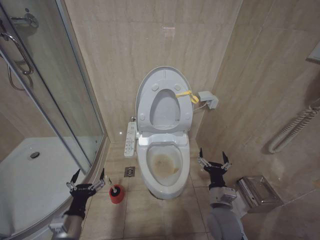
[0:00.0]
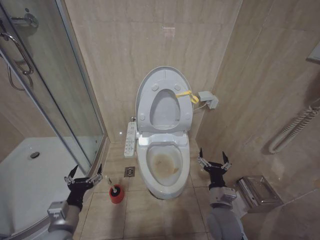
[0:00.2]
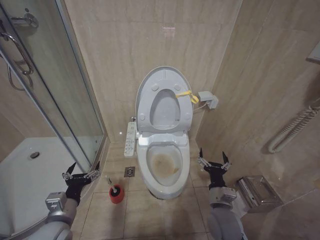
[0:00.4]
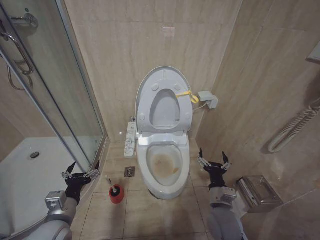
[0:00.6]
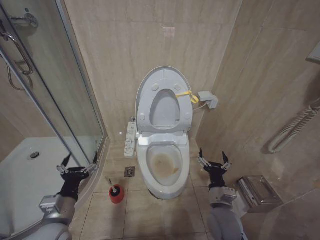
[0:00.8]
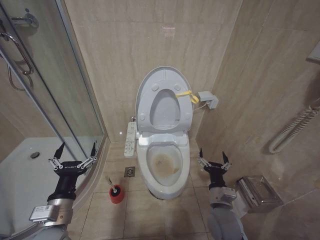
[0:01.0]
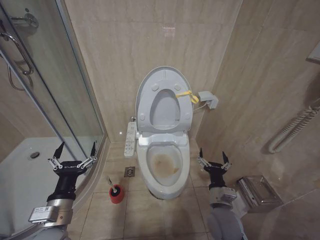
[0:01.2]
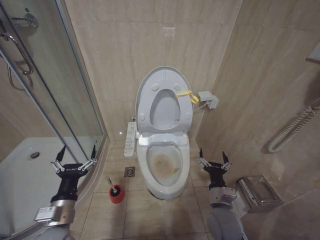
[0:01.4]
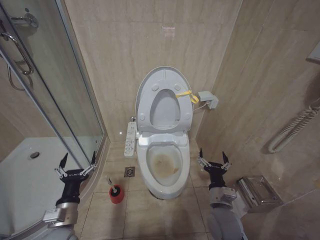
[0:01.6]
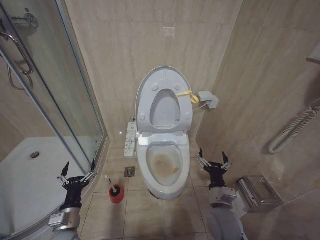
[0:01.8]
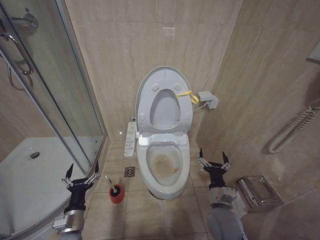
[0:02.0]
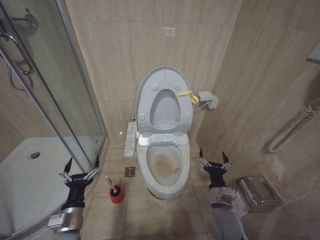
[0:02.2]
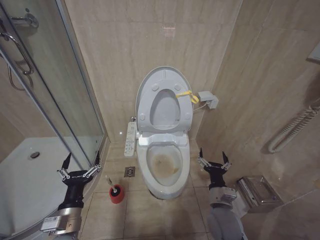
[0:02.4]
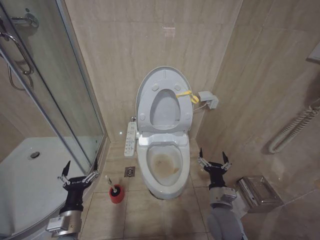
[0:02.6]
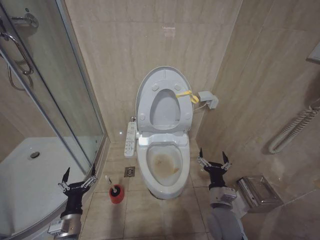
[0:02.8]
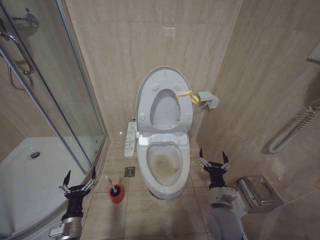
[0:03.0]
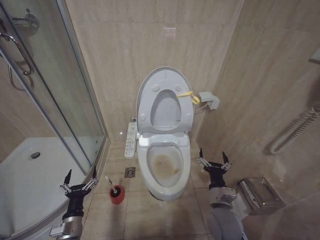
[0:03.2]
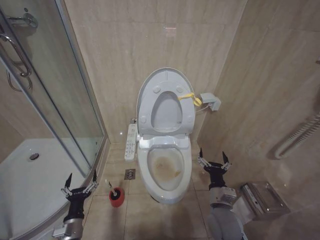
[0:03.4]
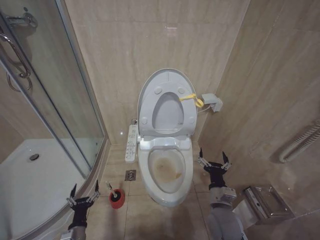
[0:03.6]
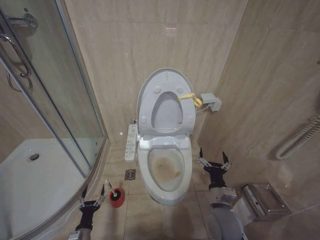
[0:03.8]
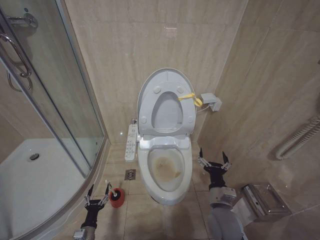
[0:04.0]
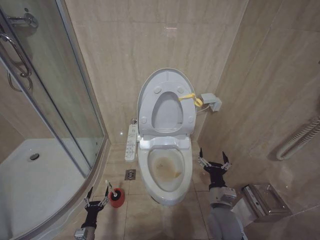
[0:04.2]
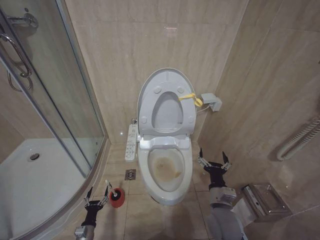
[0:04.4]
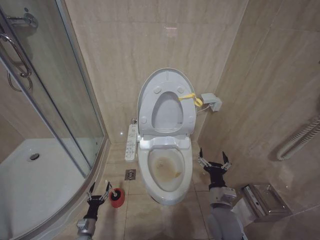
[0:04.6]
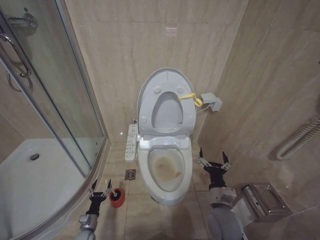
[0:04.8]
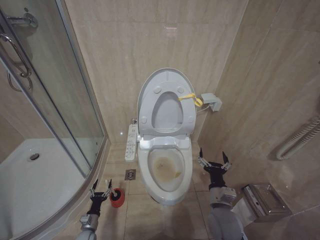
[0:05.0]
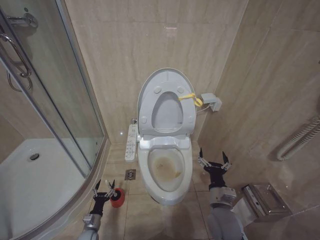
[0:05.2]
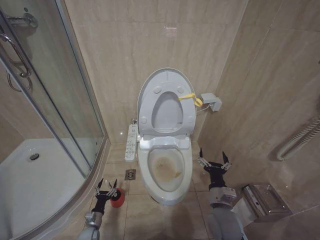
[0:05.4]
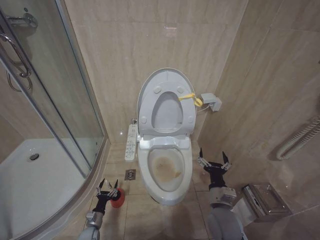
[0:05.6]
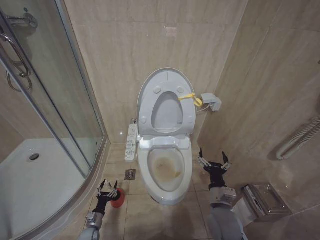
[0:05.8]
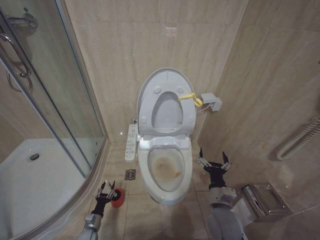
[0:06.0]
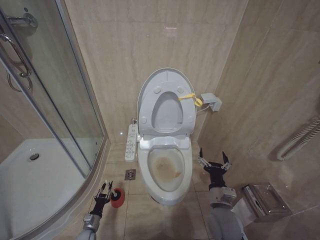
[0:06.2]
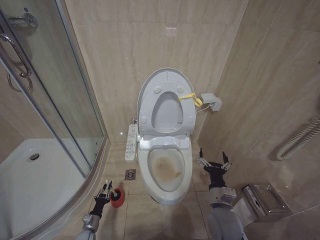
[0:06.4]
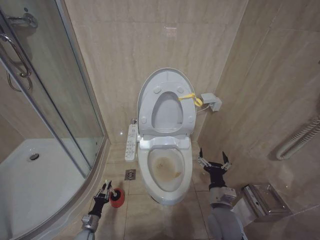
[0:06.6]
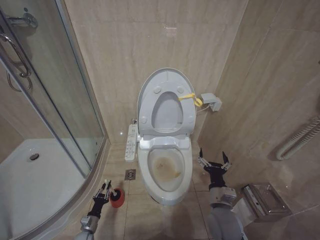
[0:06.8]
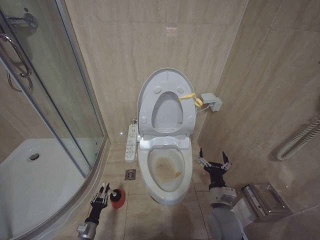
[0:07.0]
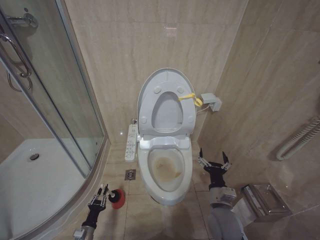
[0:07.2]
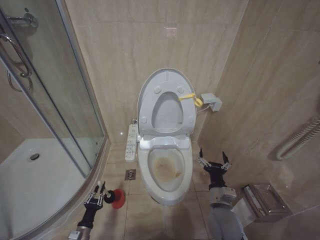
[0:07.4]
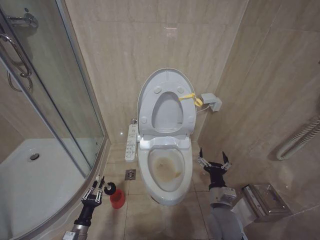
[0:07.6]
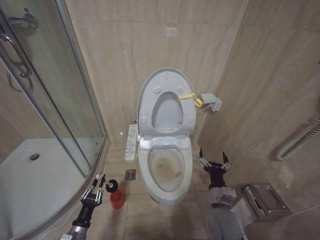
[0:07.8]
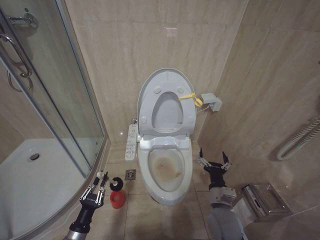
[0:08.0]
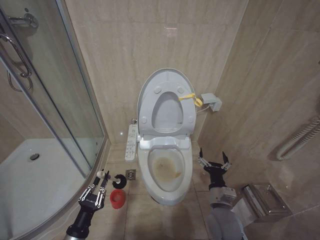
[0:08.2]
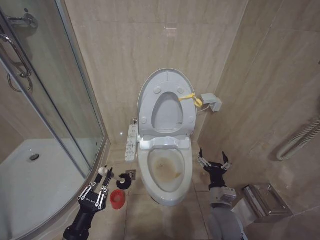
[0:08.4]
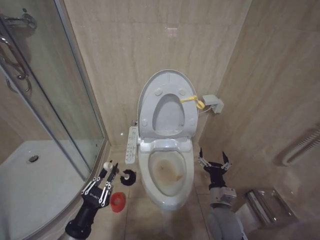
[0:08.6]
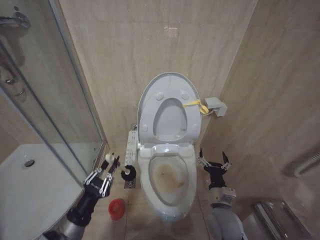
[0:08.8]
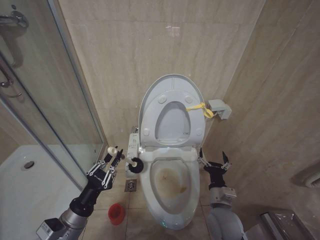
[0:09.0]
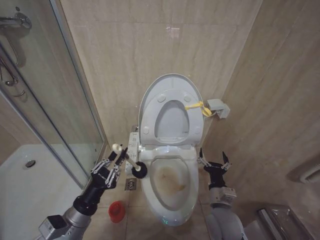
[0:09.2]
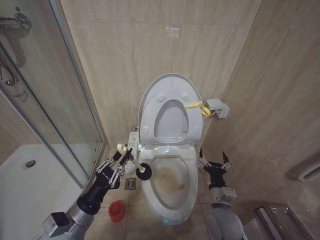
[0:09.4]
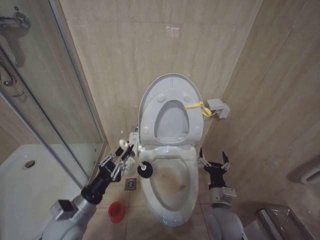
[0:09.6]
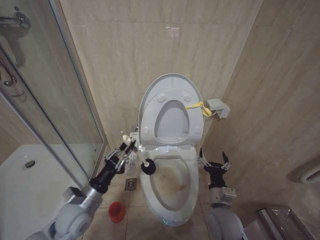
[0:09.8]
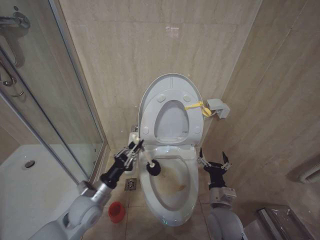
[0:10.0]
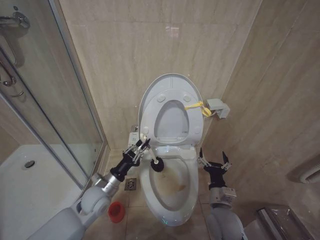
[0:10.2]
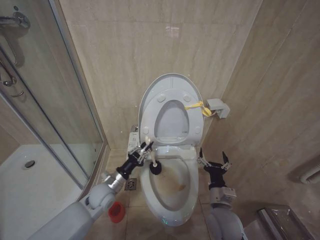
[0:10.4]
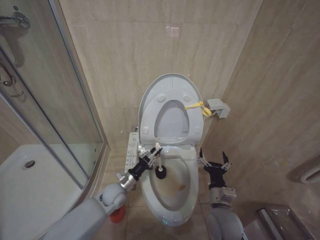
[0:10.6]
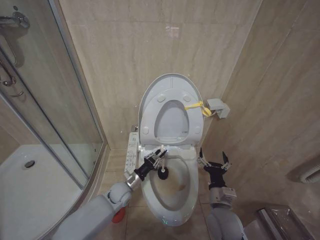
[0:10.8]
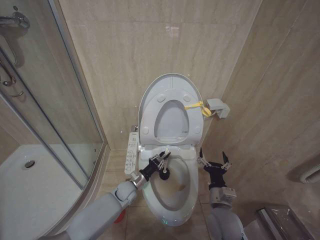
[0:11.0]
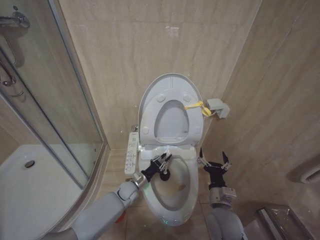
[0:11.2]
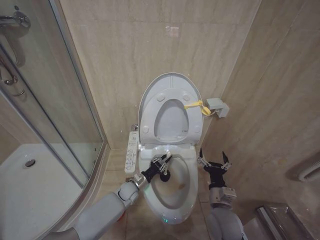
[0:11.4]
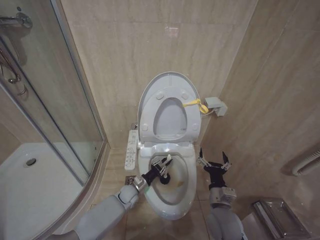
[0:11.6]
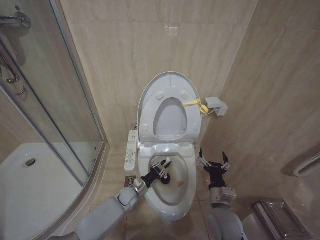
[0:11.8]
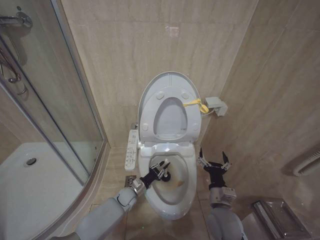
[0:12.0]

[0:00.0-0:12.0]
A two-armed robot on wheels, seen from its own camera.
Task of the whole recording: Open the toilet lid, clean the toilet bowl with a toilet brush, close the toilet lid, and flush.
0:00.0 to 0:01.6: The left gripper moves about 10 cm upward and comes back.
0:01.6 to 0:03.0: The left gripper goes up and down, about 10 cm each way, reversing 2 times.
0:03.0 to 0:04.4: The left gripper heads downward, covering approximately 20 cm.
0:04.4 to 0:06.0: The left gripper goes about 5 cm forward.
0:06.0 to 0:07.6: The left gripper heads upward and backward, covering some 15 cm, and closes its fingers.
0:07.6 to 0:09.0: The left gripper shifts roughly 25 cm upward.
0:09.0 to 0:10.4: The left gripper moves forward and to the right, some 15 cm.
0:10.4 to 0:12.0: The left gripper travels downward and to the right by some 15 cm.

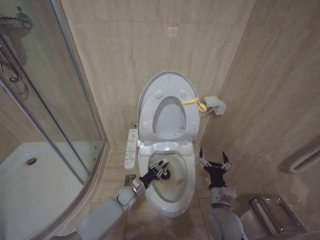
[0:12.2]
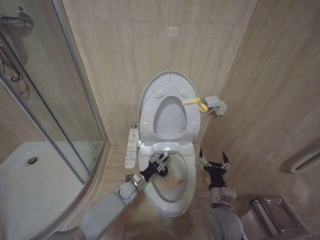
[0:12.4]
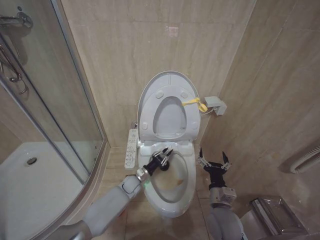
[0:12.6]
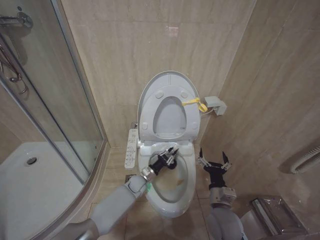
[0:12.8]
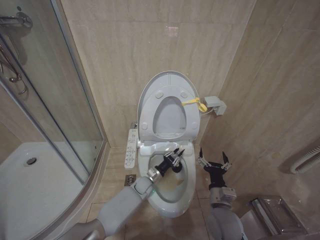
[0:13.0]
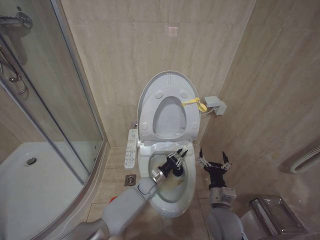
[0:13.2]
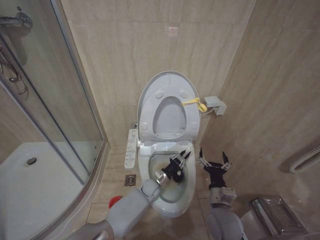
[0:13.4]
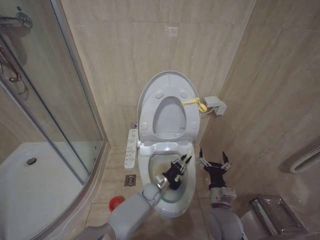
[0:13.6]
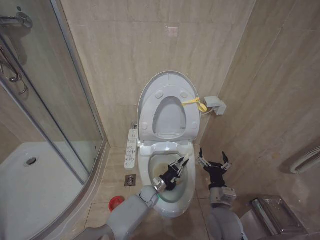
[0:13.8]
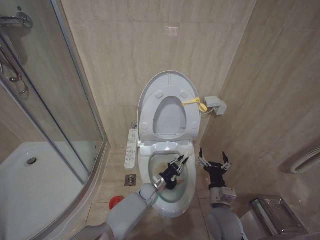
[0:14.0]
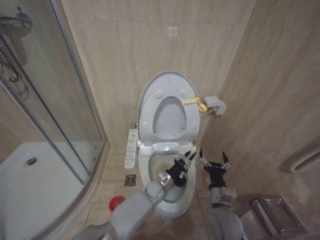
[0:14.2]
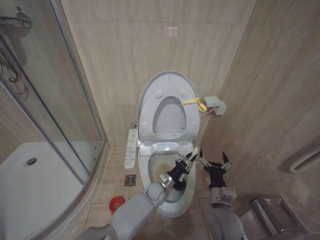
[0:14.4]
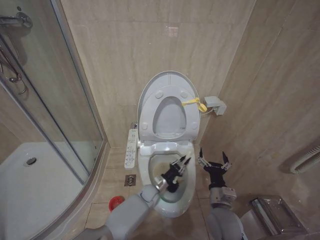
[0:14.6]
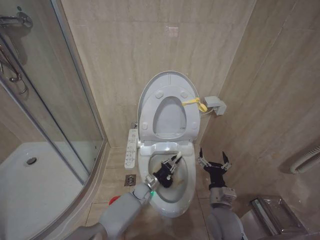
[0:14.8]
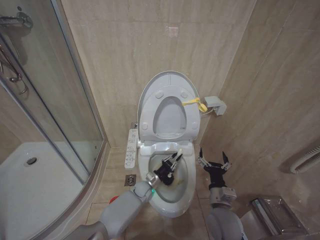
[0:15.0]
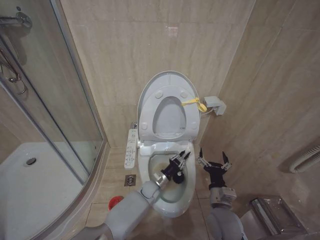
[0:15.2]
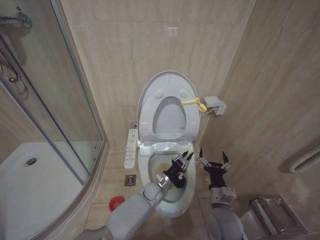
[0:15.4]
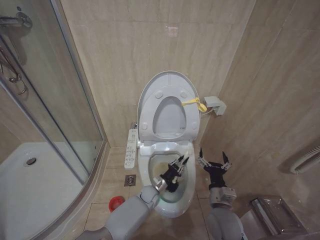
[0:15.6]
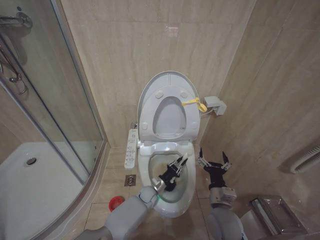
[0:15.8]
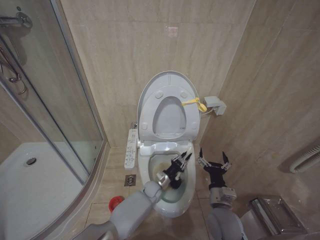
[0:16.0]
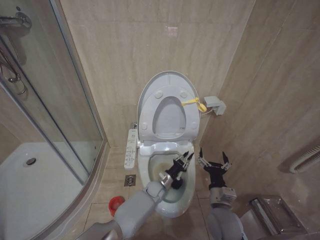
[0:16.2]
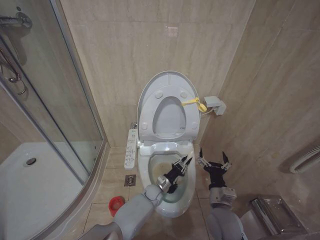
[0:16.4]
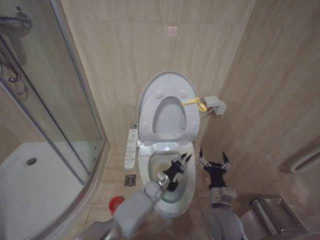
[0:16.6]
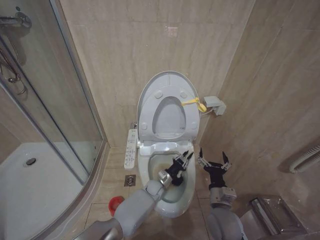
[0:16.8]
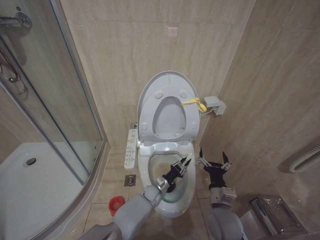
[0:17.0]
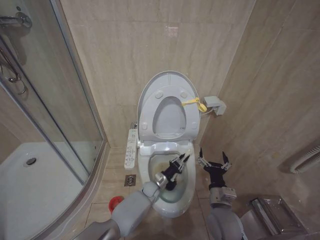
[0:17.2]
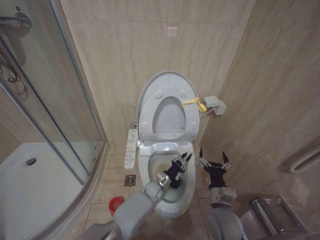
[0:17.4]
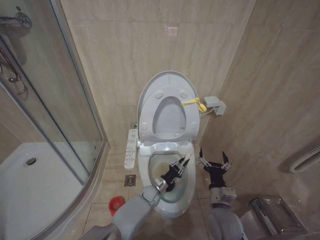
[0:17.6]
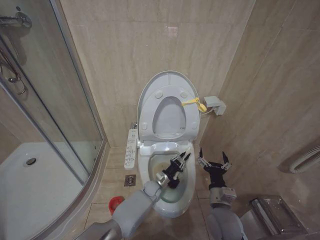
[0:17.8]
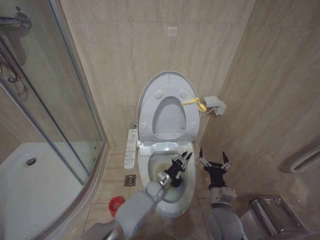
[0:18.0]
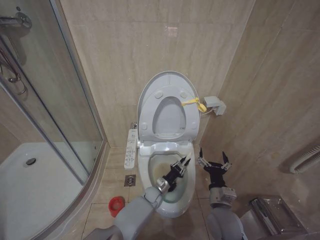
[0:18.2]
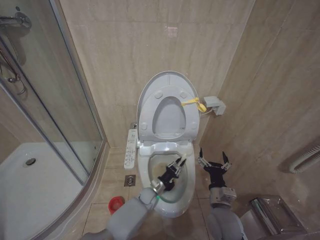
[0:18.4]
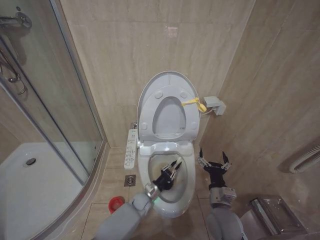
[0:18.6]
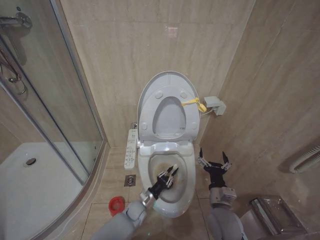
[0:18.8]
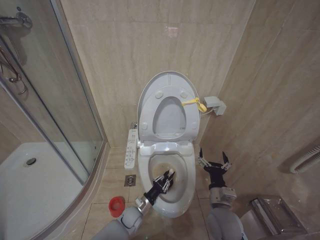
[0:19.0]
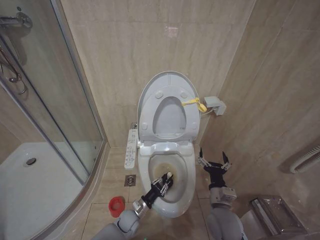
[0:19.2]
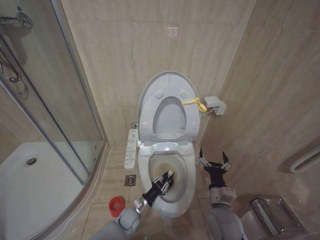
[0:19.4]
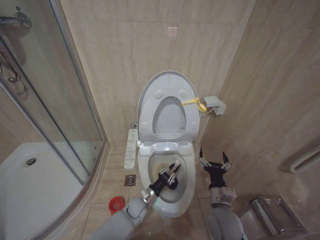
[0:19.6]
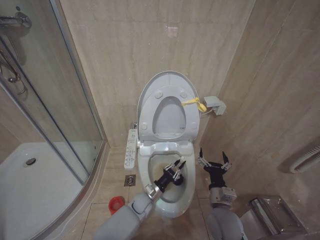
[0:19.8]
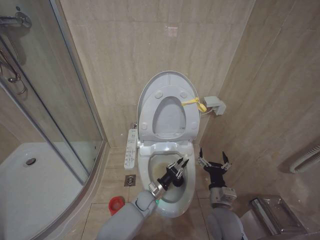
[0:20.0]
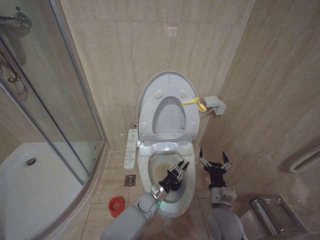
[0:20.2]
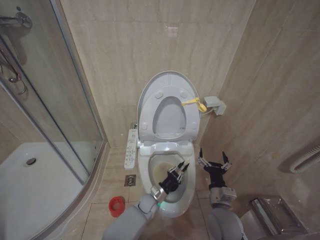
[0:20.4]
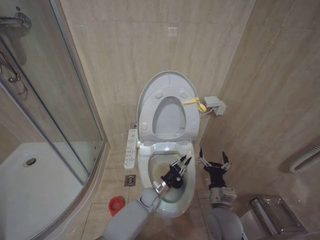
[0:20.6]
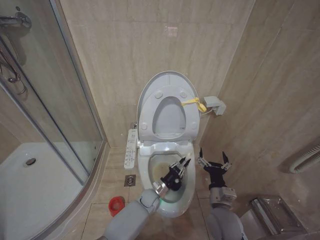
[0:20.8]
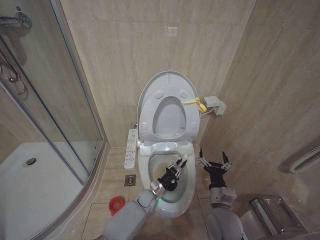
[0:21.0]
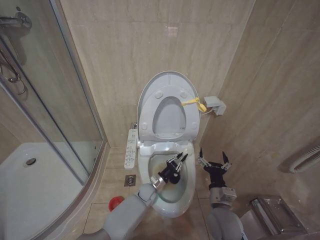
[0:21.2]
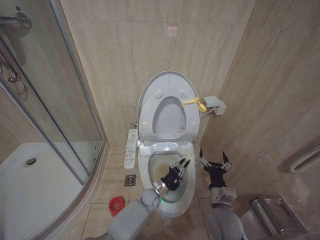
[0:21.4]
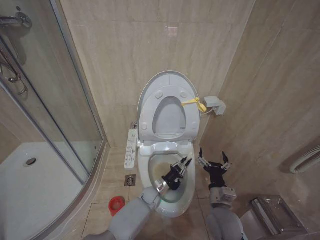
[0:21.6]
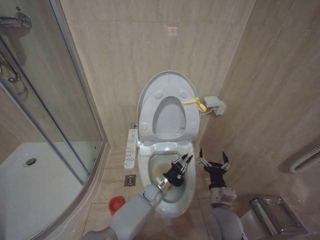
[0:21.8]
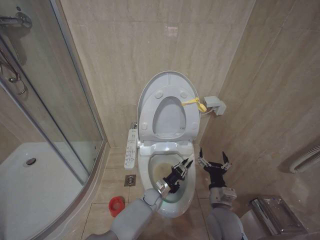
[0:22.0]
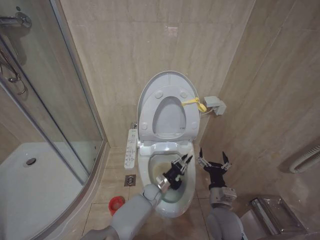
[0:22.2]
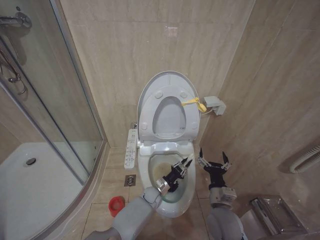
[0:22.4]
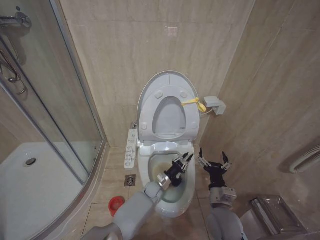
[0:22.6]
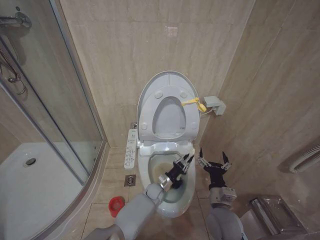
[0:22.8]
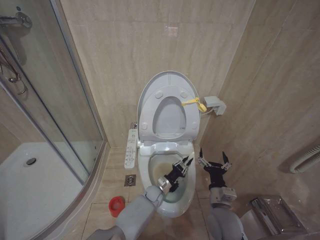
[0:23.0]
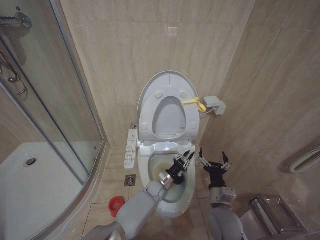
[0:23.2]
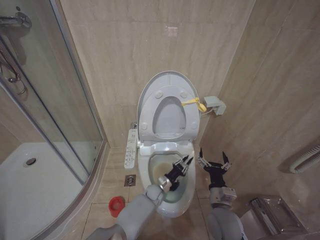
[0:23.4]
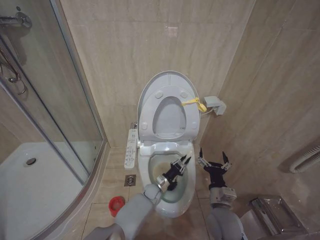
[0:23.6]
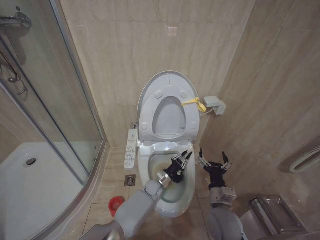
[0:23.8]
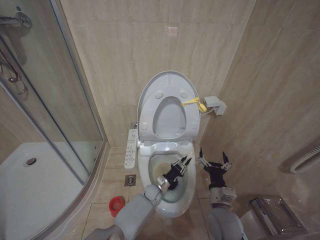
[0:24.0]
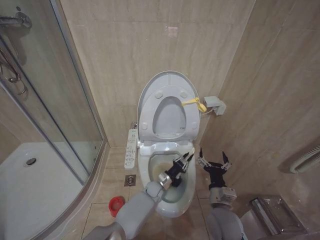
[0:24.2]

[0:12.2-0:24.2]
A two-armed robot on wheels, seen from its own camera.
Task of the whole recording: Open the toilet lid, clean the toilet bowl with a toilet brush, close the toilet lid, and flush.
0:12.2 to 0:13.8: The left gripper heads to the right, covering approximately 10 cm.
0:13.8 to 0:18.2: The grippers make only small movements.
0:18.2 to 0:19.8: The left gripper heads to the left and backward, covering some 10 cm.
0:19.8 to 0:21.2: The left gripper ends up some 5 cm from where it was.
0:21.2 to 0:22.6: The grippers stay close to where they were, moving slightly.
